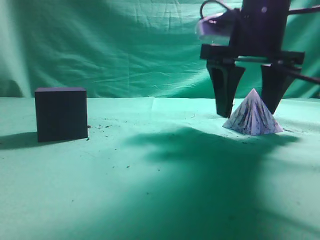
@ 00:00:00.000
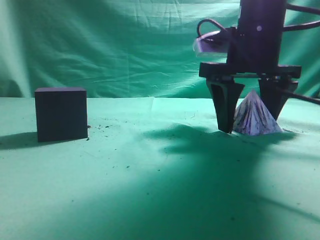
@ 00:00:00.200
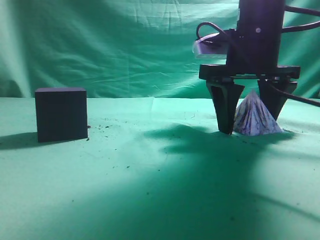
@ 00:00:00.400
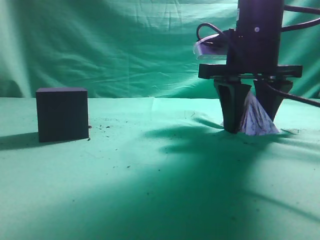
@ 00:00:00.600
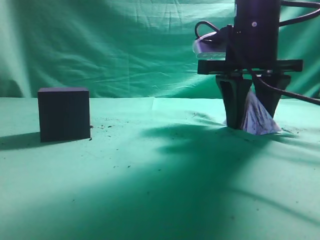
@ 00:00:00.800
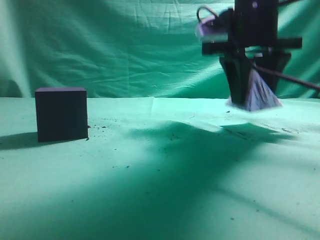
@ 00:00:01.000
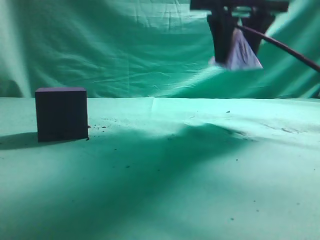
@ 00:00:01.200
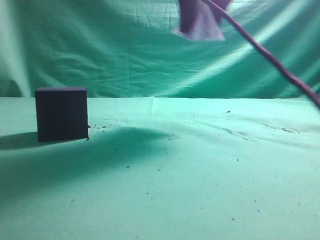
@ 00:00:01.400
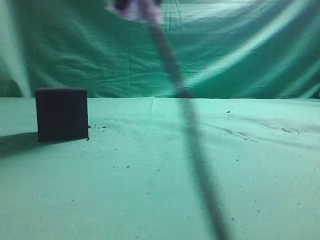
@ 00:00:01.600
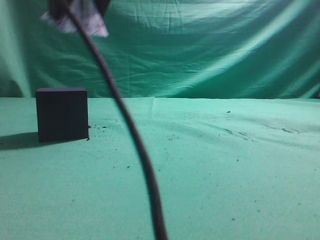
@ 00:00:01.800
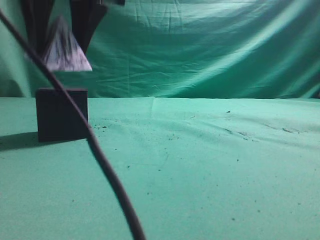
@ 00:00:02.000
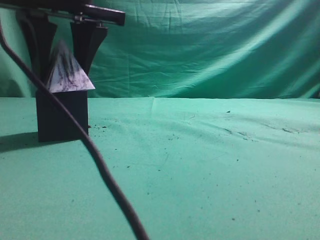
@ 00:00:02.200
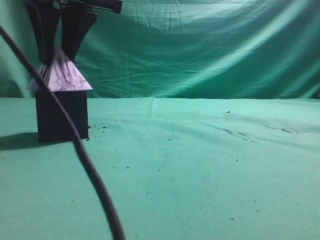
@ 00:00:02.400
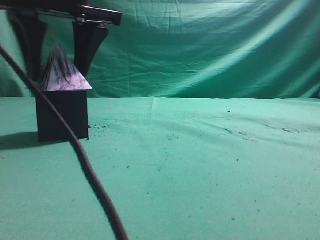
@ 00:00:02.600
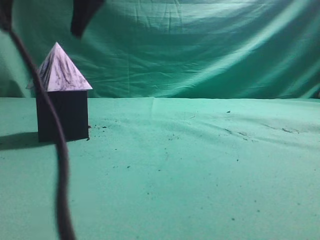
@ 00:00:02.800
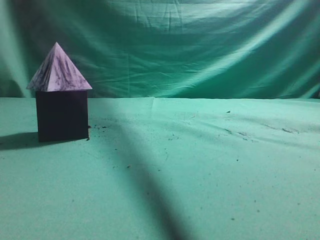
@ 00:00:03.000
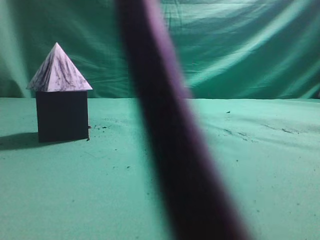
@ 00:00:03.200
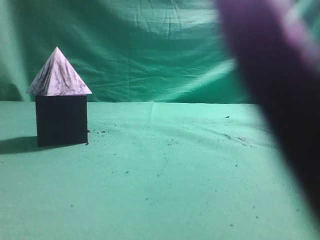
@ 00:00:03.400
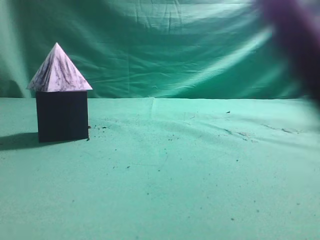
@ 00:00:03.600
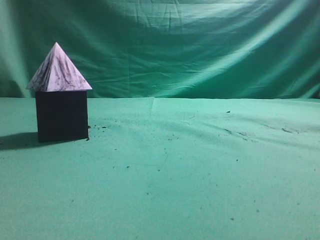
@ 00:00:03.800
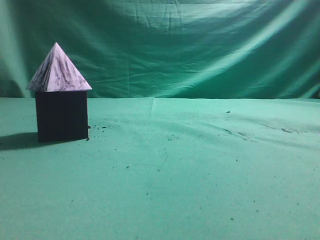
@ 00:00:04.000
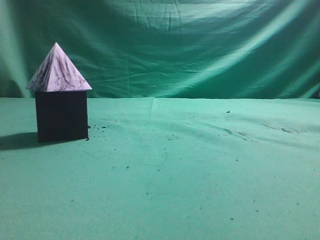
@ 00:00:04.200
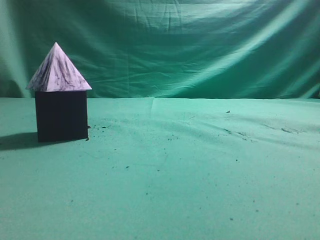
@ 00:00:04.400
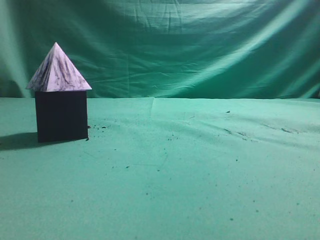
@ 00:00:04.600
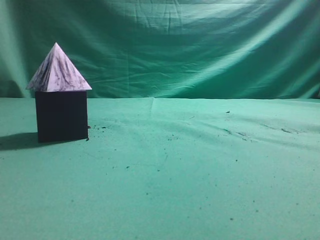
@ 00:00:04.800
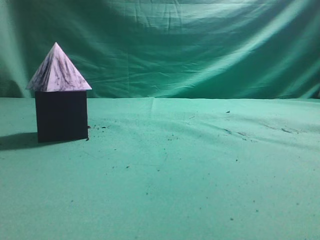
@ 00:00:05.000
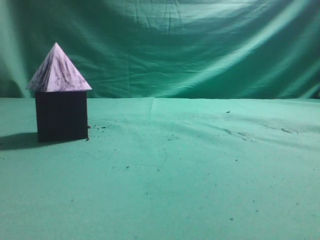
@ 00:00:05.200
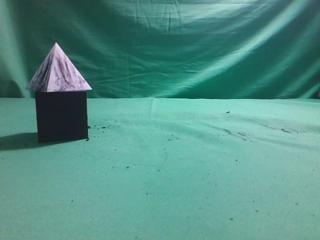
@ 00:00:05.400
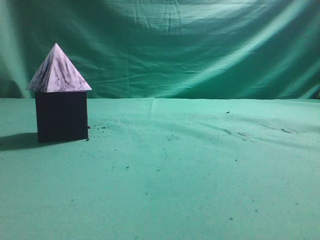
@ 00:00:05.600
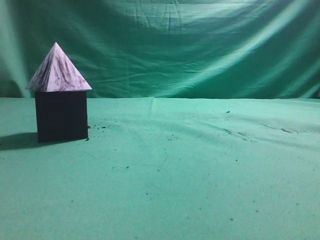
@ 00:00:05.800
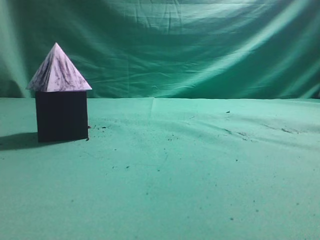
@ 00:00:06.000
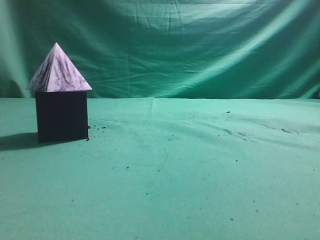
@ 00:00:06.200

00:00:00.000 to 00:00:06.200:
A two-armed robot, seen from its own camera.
Task of the whole recording: pick up the square pyramid from the table and place it on the cube block.
Step, 00:00:01.400 to 00:00:02.800: Place the block onto the cube-shaped block.
00:00:00.000 to 00:00:01.600: The right gripper travels upward and to the left by roughly 20 cm.
00:00:01.600 to 00:00:03.200: The right gripper heads upward and backward, covering approximately 15 cm, and closes up.
00:00:03.200 to 00:00:04.600: The right gripper moves to the right and backward, roughly 30 cm.
